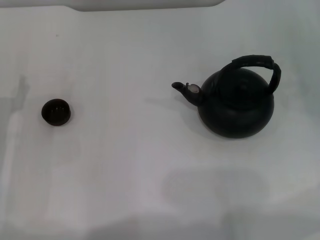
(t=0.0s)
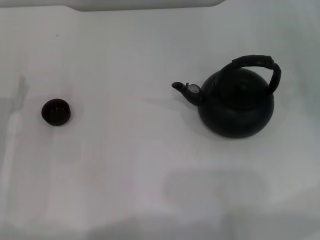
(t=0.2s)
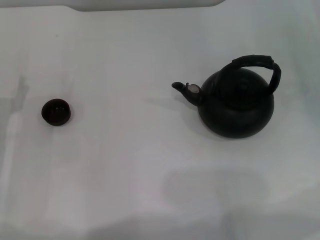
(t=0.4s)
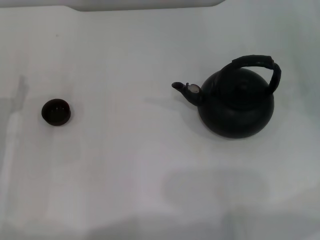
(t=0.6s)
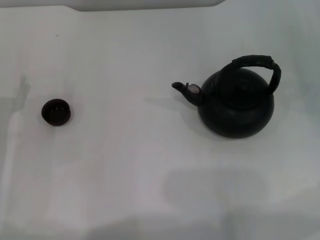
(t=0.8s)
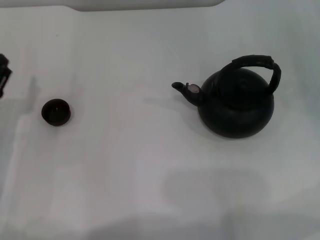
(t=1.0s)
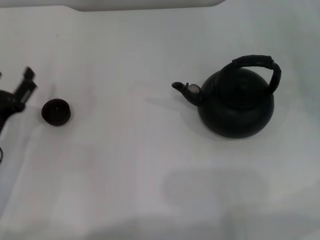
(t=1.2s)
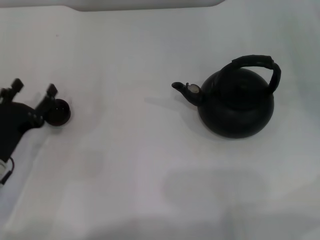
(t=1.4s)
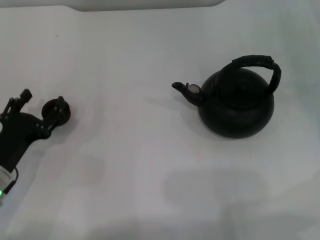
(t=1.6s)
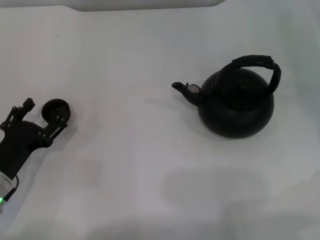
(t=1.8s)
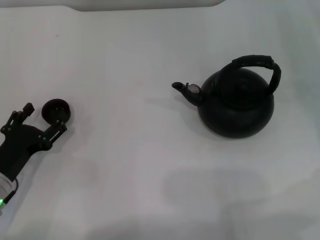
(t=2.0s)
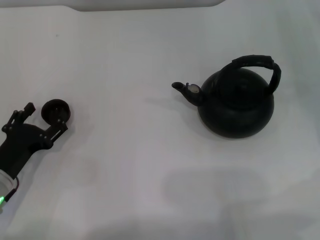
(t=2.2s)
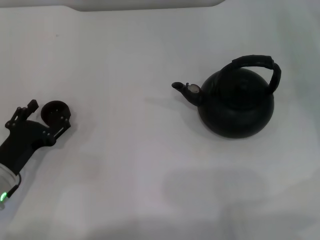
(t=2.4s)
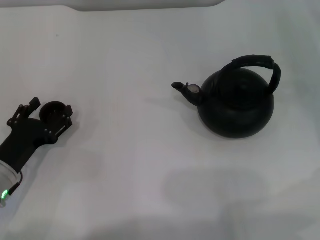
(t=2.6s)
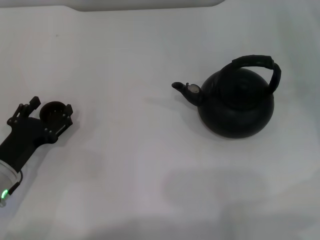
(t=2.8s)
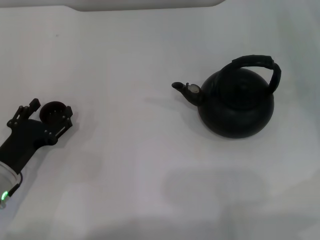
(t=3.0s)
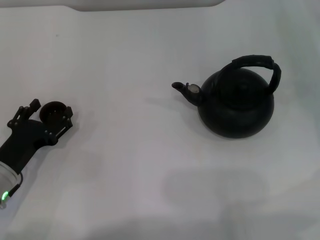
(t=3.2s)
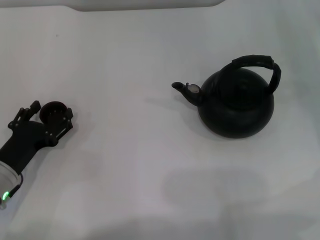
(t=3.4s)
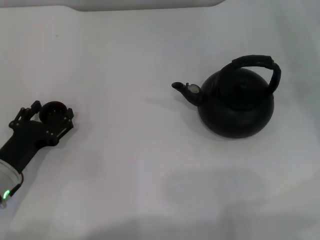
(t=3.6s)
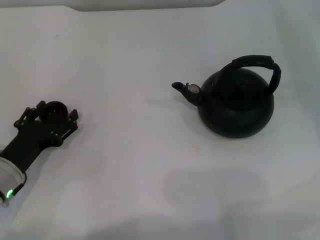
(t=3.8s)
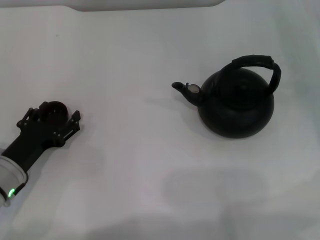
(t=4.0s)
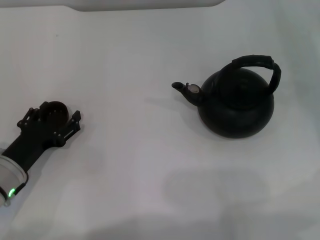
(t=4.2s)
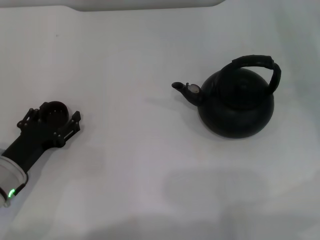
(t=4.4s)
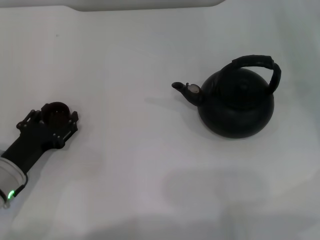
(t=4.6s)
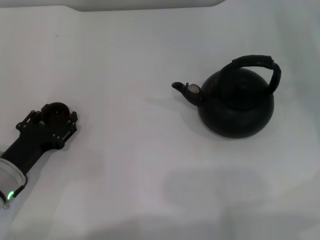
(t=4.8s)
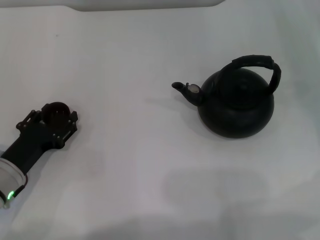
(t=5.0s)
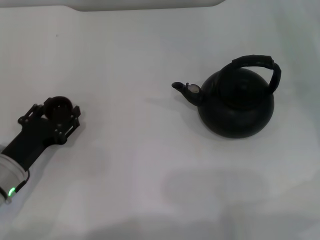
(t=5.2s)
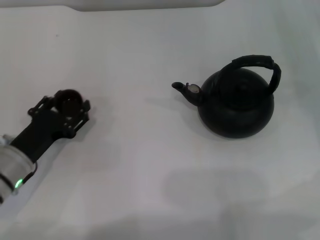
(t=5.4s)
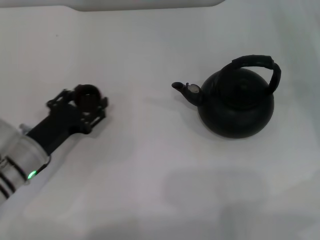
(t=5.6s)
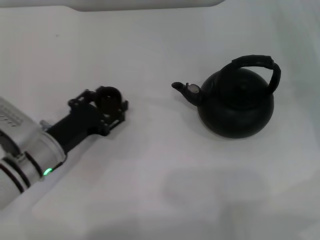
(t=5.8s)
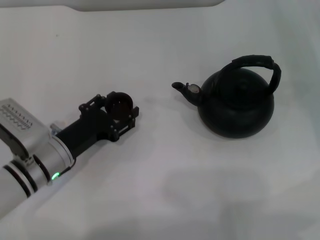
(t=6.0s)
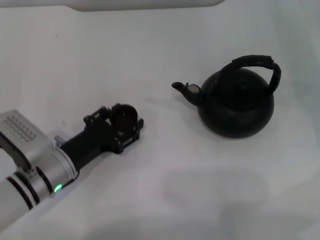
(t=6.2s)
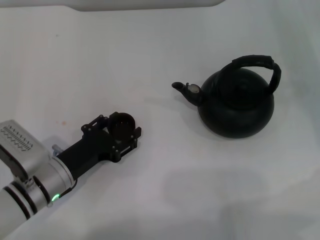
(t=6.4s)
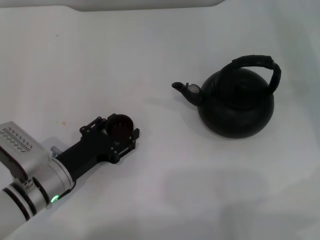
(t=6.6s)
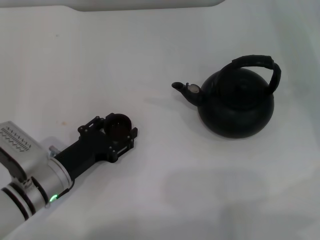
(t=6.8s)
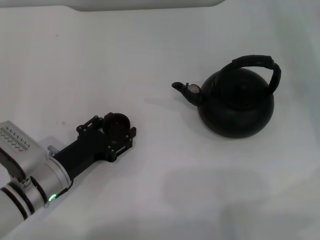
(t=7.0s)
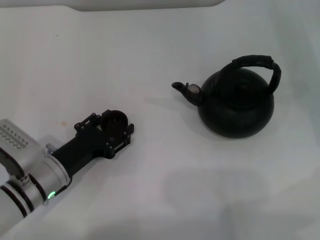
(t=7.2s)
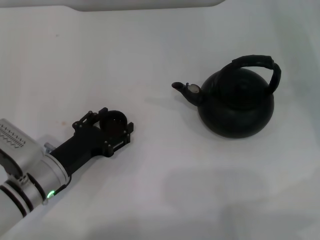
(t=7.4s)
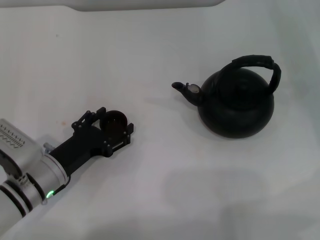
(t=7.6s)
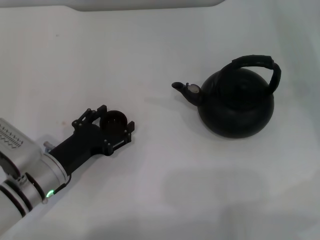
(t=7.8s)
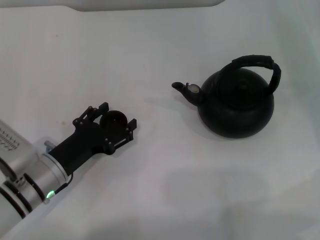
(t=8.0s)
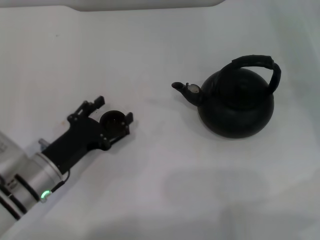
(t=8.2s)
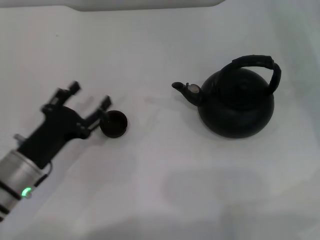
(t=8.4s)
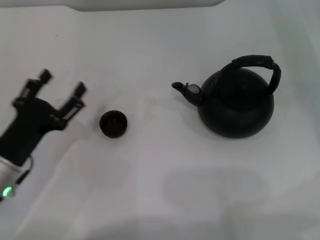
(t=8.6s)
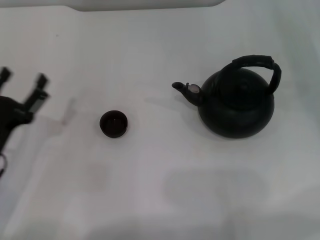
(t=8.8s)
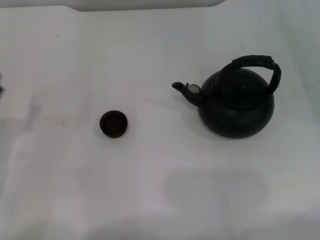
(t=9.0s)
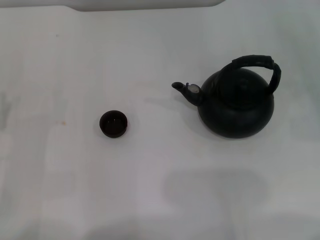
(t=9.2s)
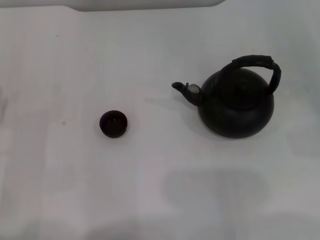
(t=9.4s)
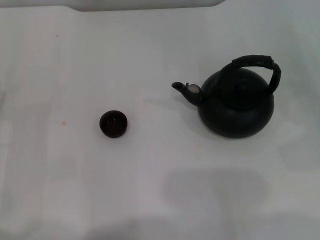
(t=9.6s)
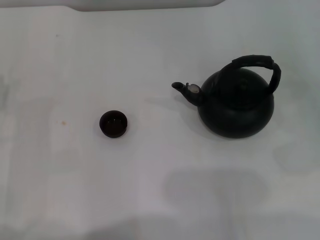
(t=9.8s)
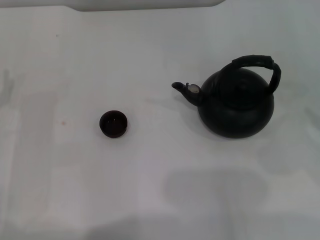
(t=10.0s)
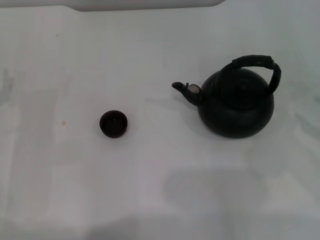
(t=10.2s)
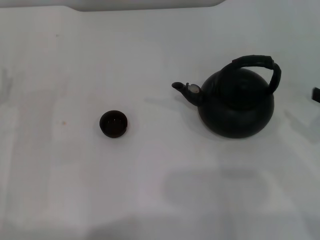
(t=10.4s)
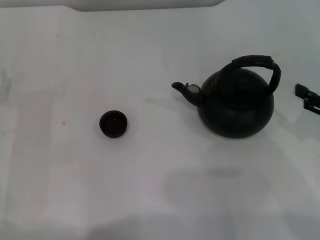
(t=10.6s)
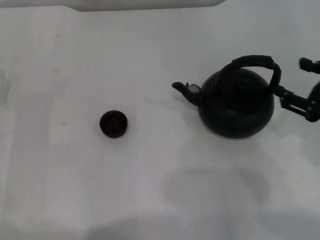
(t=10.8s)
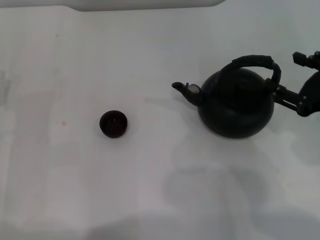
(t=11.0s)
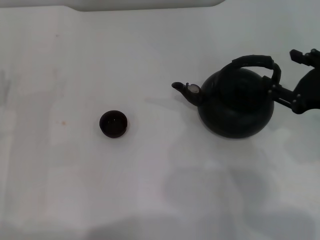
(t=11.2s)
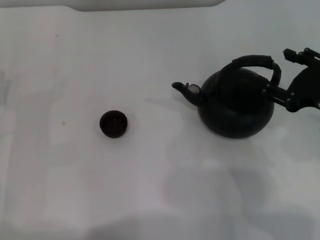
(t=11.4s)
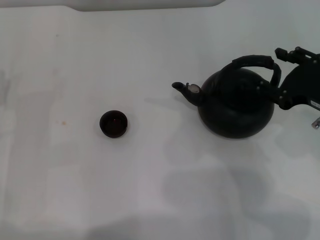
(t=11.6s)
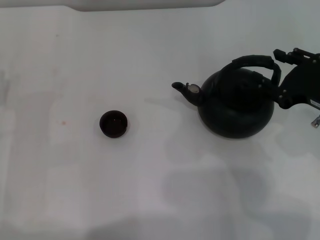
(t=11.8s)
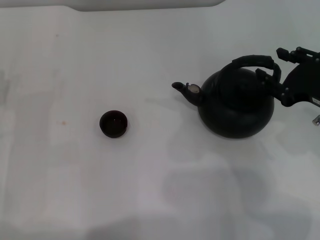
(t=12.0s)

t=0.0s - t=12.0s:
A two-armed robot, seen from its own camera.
Task of the whole recording: Grasp the handle of the teapot with one hand and pour tea into the teacup.
Step, t=0.0s - t=5.4s: Pick up the teacup with the left gripper.
Step, t=5.6s - t=8.8s: Place the teacup in the center of view with the left gripper.
t=0.0s - t=1.6s: The left gripper ends up roughly 5 cm from where it was.
t=1.6s - t=3.0s: There are only small adjustments of the grippers.
t=3.0s - t=4.4s: Both grippers stay about where they are.
t=4.4s - t=6.0s: The left gripper heads to the right, covering some 5 cm, and closes its fingers.
t=6.0s - t=7.6s: The left gripper opens.
t=7.6s - t=9.0s: The left gripper shifts roughly 10 cm to the left.
t=10.4s - t=12.0s: The right gripper moves to the left, some 10 cm.

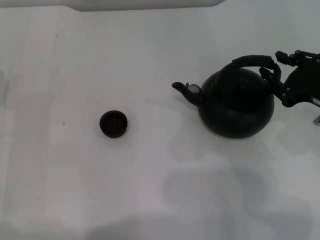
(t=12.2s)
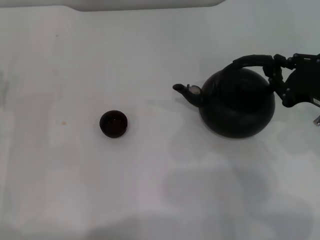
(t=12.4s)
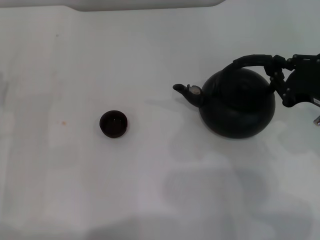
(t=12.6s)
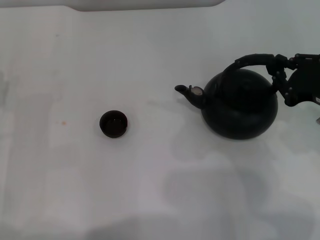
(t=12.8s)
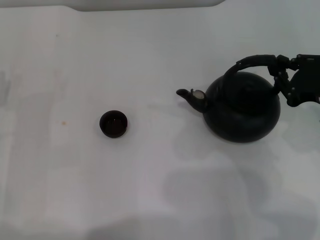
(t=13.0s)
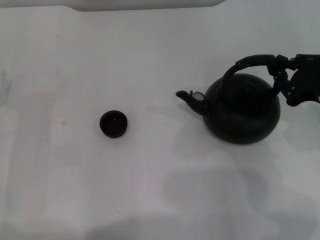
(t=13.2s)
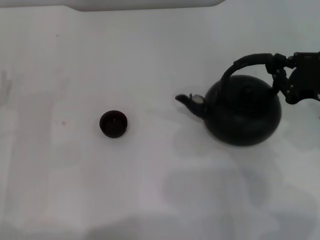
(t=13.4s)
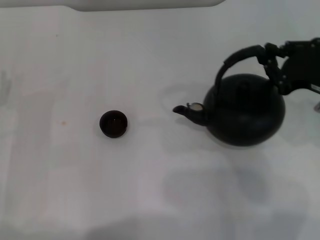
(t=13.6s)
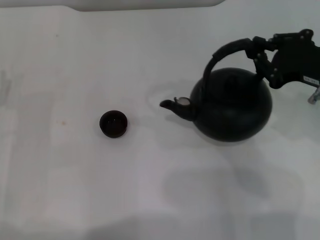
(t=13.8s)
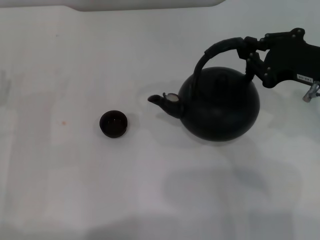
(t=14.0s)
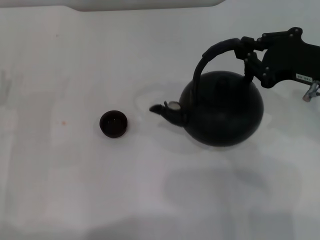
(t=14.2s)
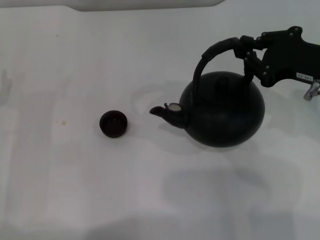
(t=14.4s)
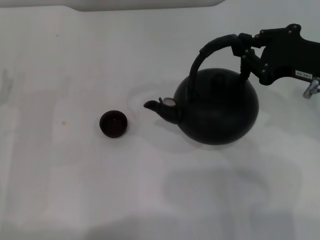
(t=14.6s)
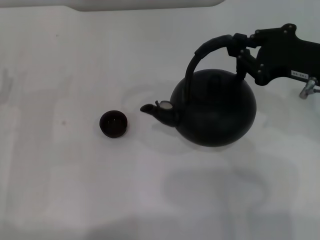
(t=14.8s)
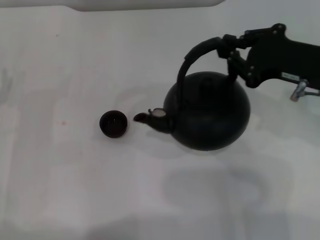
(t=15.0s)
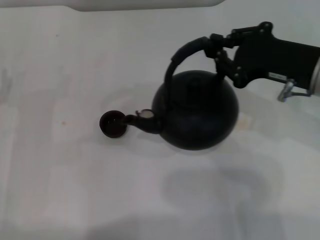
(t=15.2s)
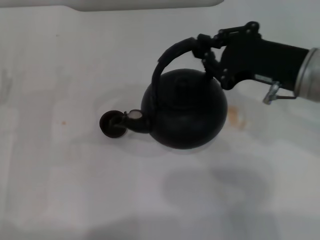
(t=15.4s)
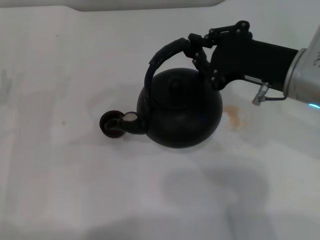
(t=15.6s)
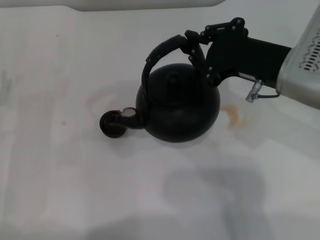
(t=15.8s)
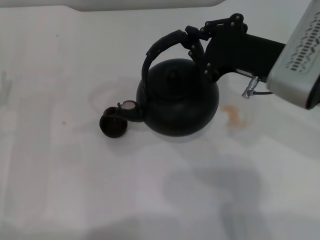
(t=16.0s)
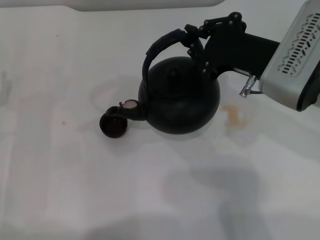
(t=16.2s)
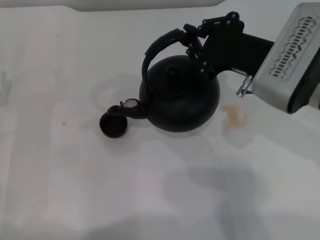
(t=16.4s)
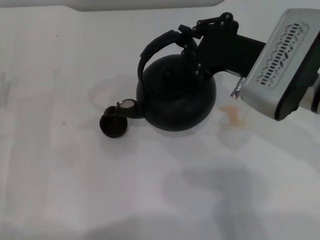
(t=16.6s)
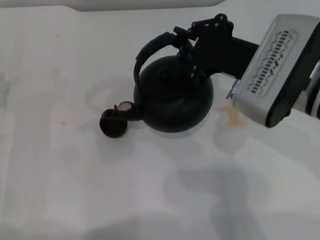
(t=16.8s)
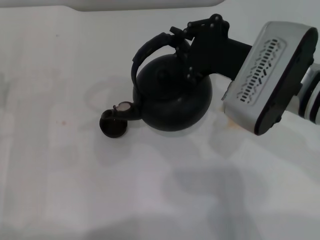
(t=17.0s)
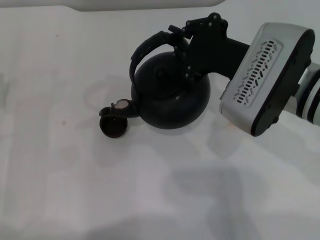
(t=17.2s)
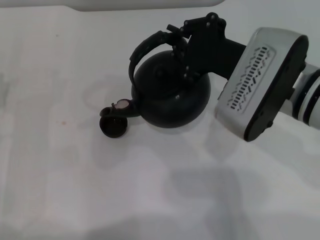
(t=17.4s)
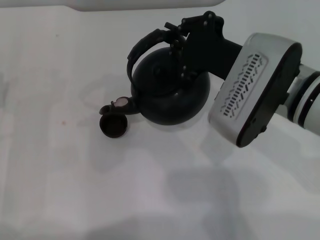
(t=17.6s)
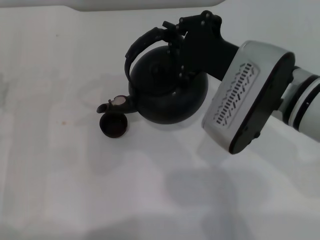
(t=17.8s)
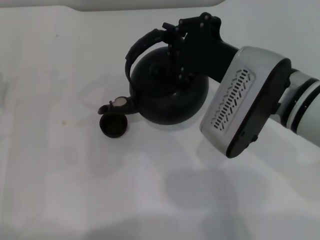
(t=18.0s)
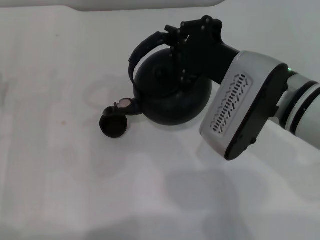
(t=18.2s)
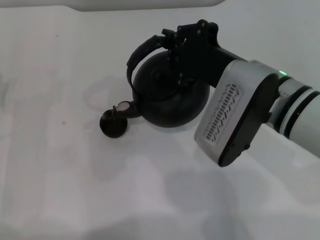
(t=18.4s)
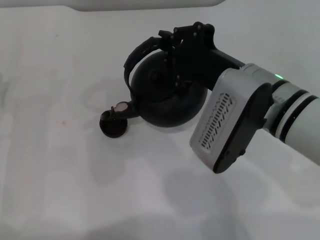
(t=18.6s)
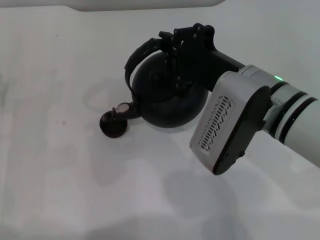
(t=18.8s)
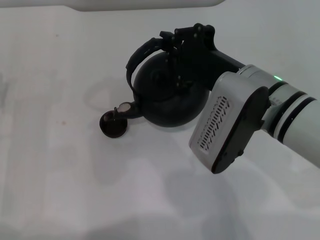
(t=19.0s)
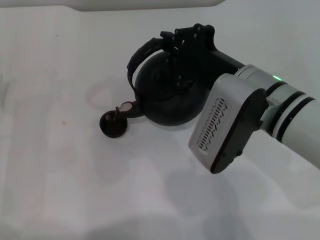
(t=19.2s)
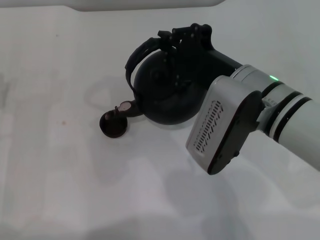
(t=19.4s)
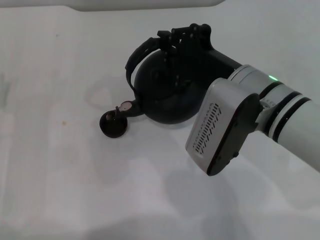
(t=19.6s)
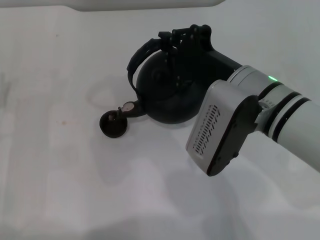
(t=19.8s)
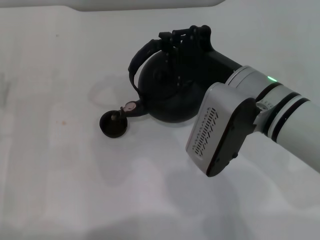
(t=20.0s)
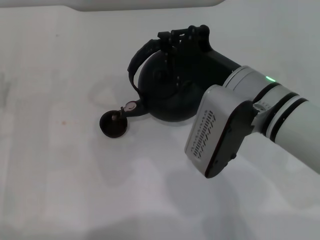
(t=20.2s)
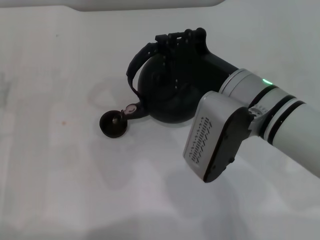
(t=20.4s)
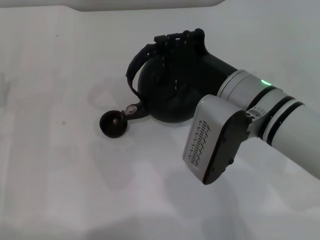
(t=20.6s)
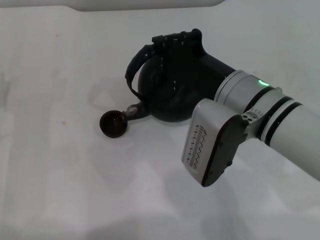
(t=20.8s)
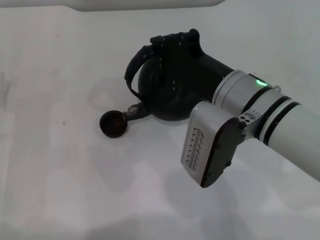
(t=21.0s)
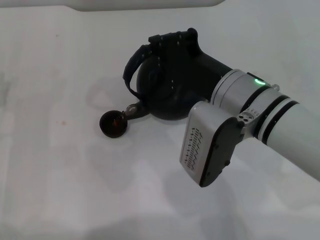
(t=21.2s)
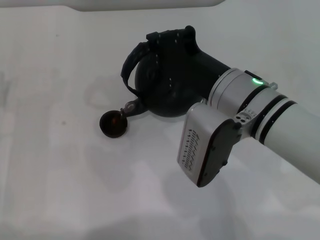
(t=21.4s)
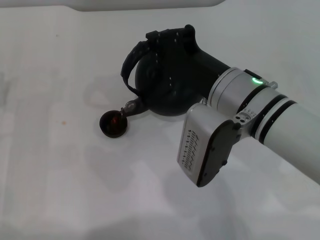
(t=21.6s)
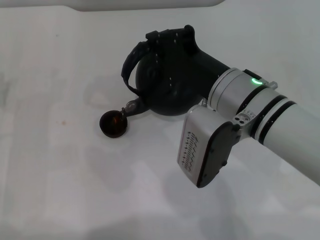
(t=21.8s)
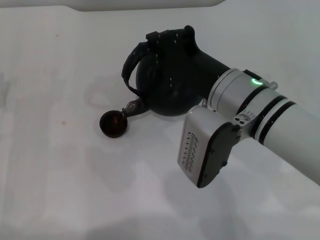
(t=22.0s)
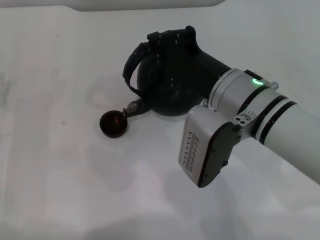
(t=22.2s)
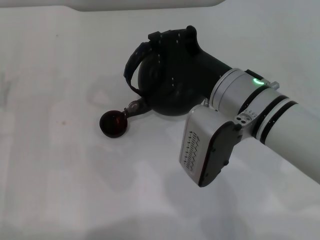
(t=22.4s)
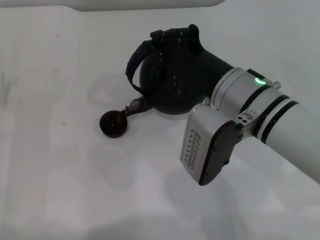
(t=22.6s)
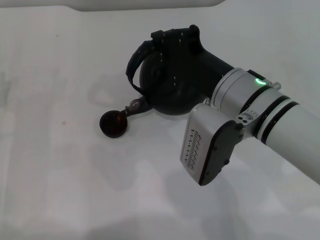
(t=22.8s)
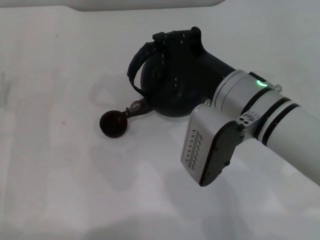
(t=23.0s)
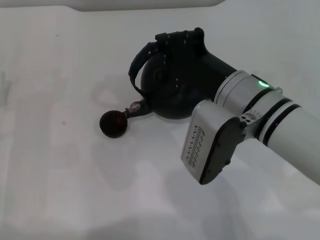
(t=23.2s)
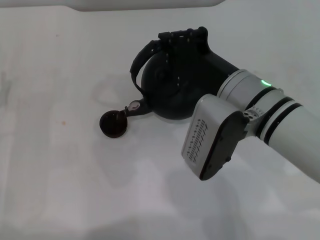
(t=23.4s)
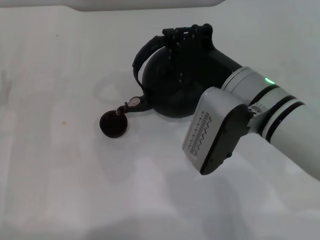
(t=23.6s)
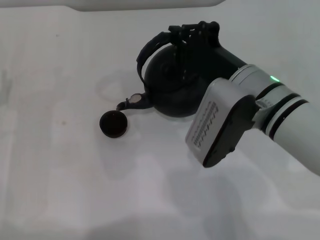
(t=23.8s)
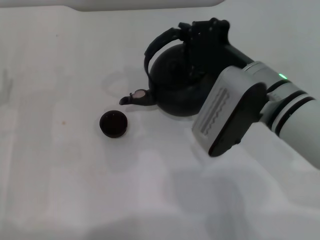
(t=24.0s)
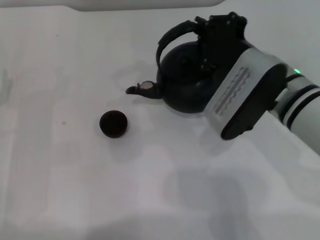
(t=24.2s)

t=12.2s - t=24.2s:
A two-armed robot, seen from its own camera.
Task of the whole recording: Grasp the handle of the teapot with one hand and pour tea into the teacup.
Step, t=12.2s - t=14.2s: Pick up the teapot with the right gripper.
t=12.2s - t=13.8s: The right gripper closes.
t=13.8s - t=15.2s: The grippers stay close to where they were, moving slightly.
t=15.2s - t=16.6s: The right gripper travels to the left by about 5 cm.
t=16.6s - t=18.2s: The grippers make only small movements.
t=18.2s - t=19.8s: The grippers make only small movements.
t=19.8s - t=21.2s: The grippers move only a little.
t=21.2s - t=22.6s: Both grippers stay put.
